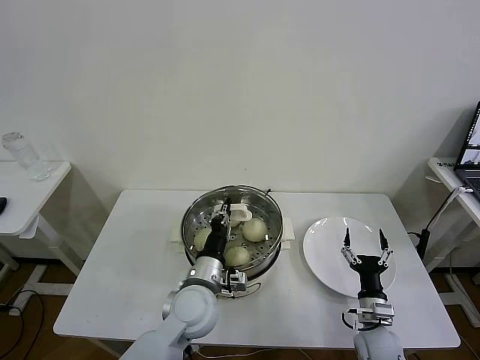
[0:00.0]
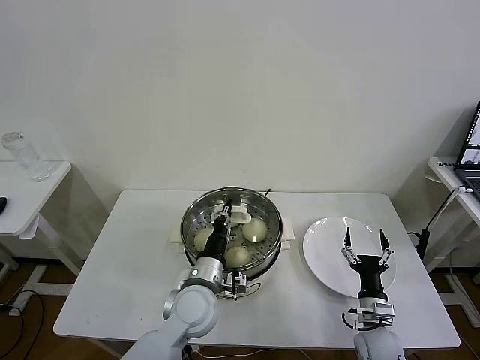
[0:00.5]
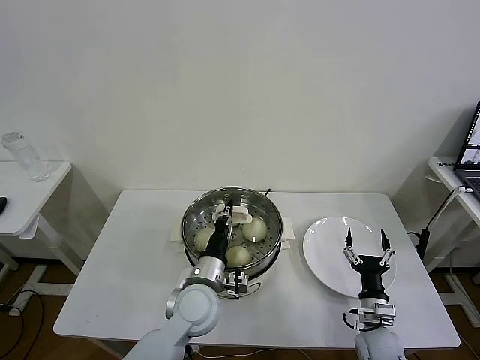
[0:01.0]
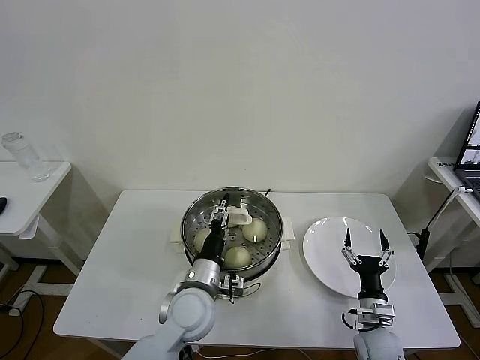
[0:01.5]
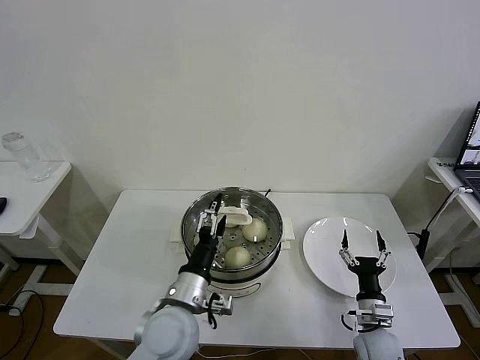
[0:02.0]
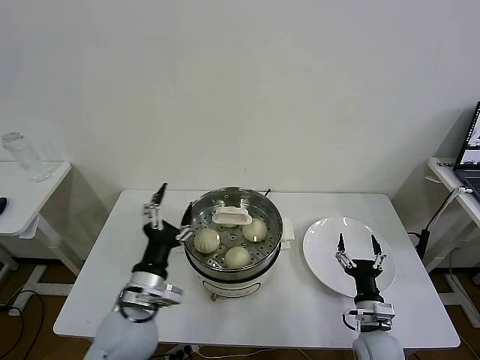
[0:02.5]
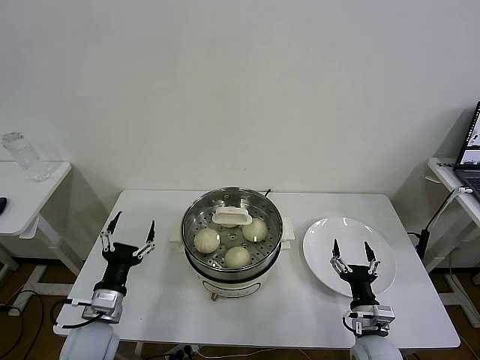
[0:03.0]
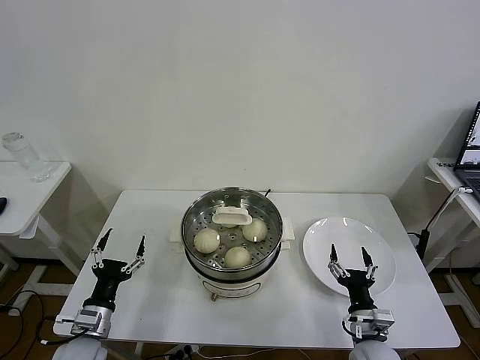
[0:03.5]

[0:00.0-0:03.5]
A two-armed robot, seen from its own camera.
Task of the whole recording: take steamed baozi put them in steamer then cover it.
0:00.0 to 0:02.0: The left gripper changes place by some 5 cm, and opens.
0:02.0 to 0:03.5: The right gripper ends up about 5 cm from where it was, while the left gripper heads to the left and downward, covering some 25 cm.

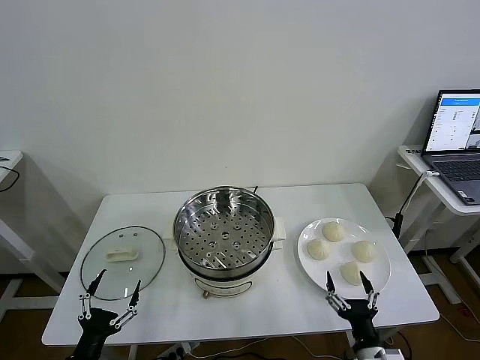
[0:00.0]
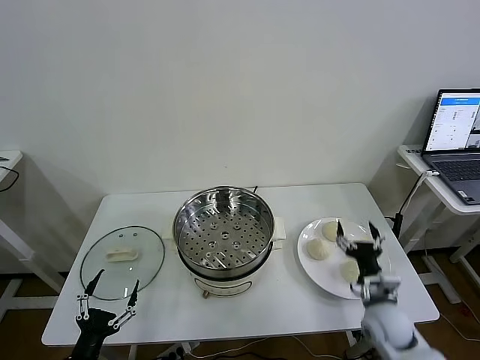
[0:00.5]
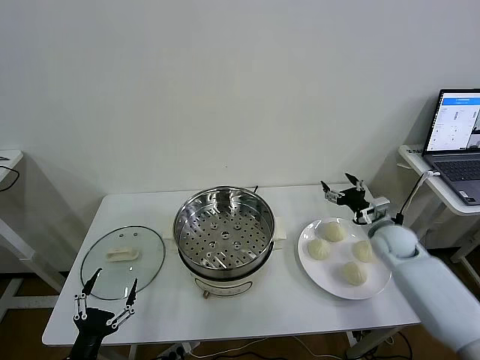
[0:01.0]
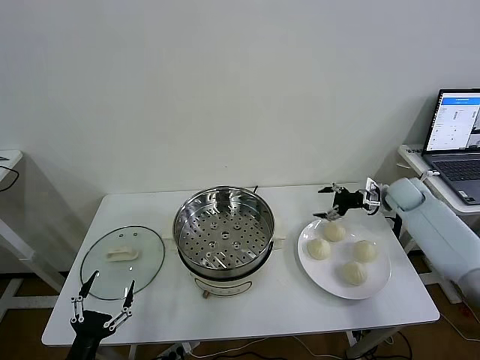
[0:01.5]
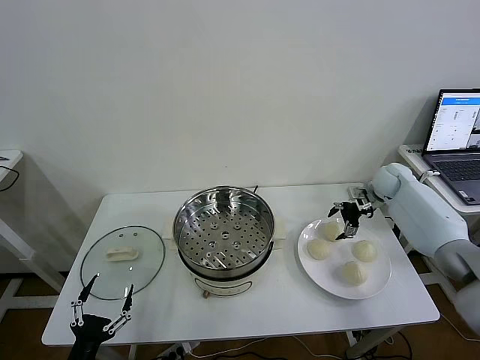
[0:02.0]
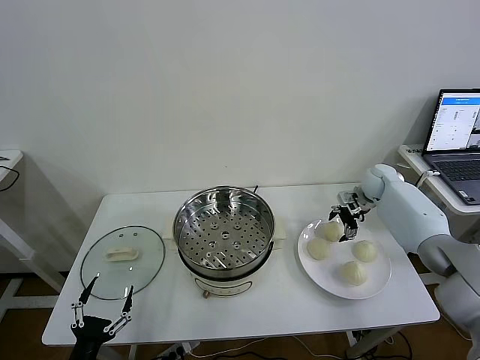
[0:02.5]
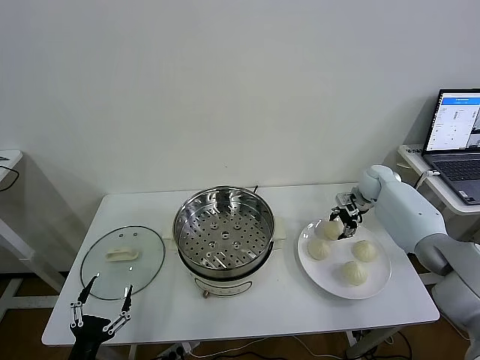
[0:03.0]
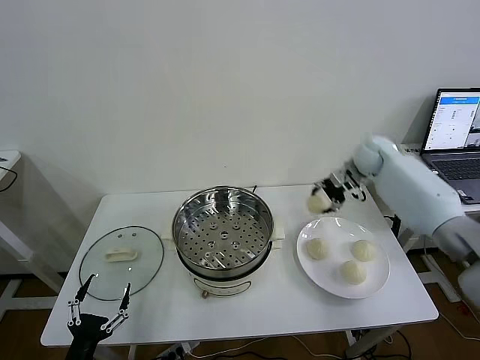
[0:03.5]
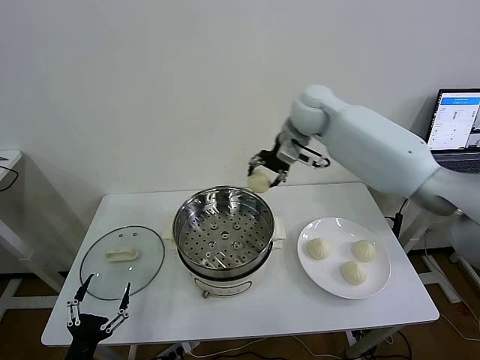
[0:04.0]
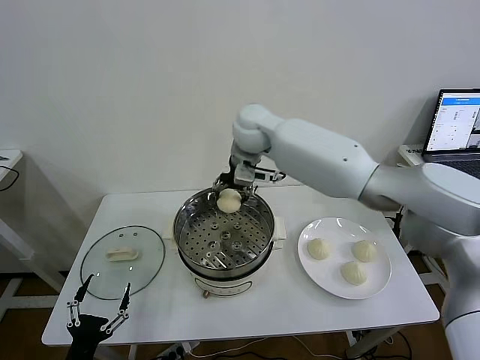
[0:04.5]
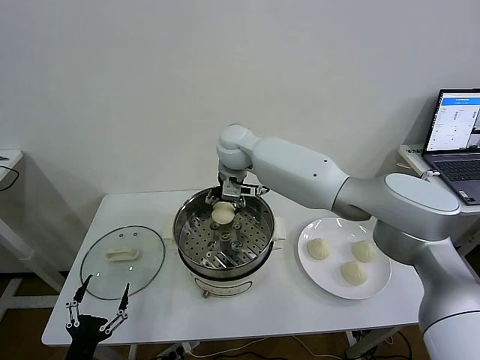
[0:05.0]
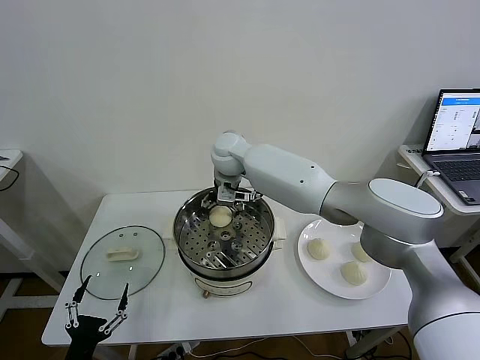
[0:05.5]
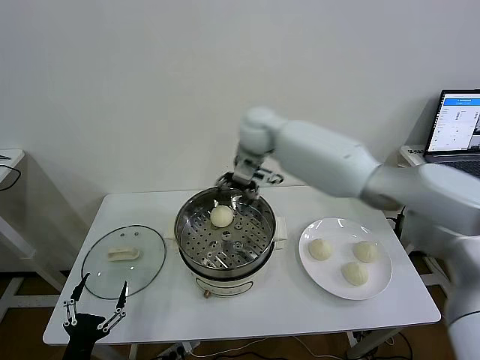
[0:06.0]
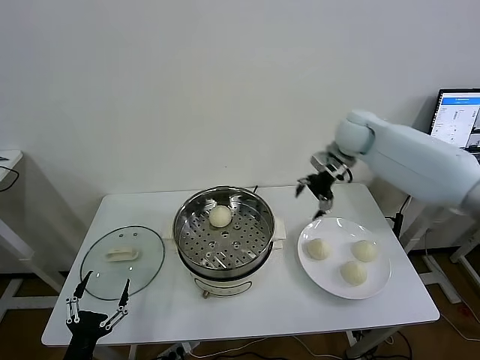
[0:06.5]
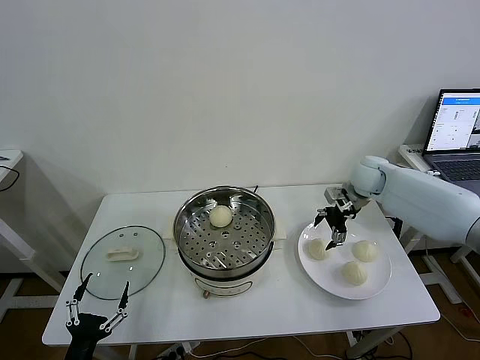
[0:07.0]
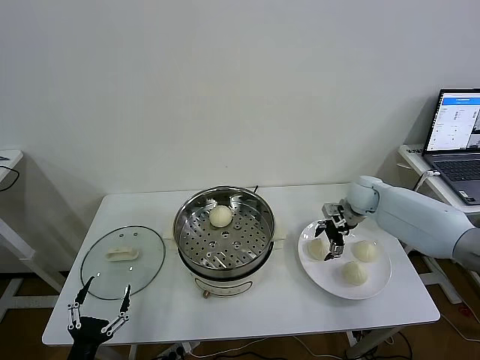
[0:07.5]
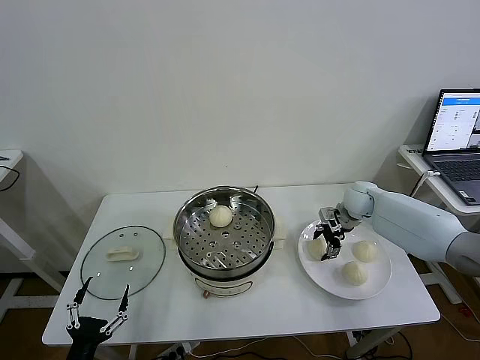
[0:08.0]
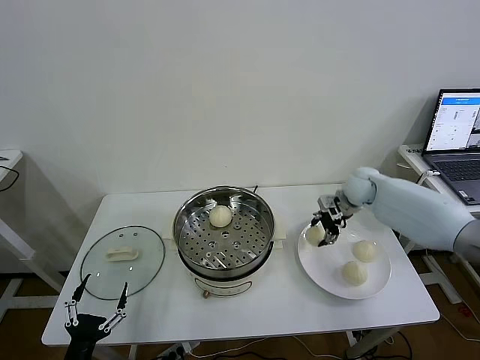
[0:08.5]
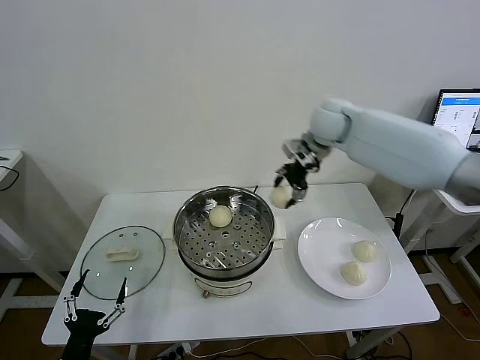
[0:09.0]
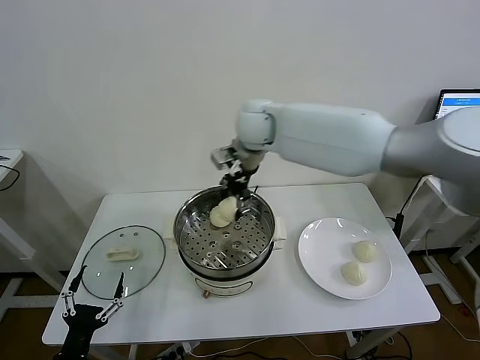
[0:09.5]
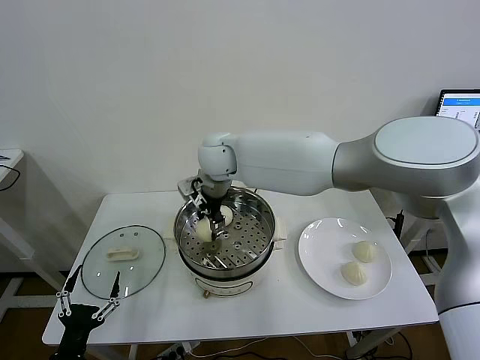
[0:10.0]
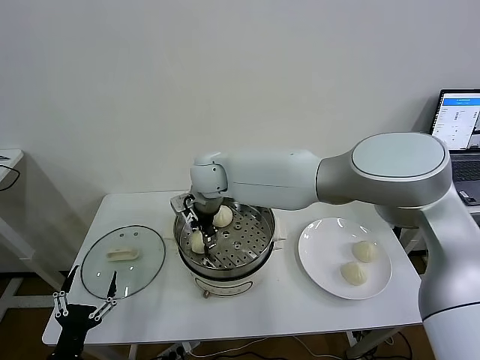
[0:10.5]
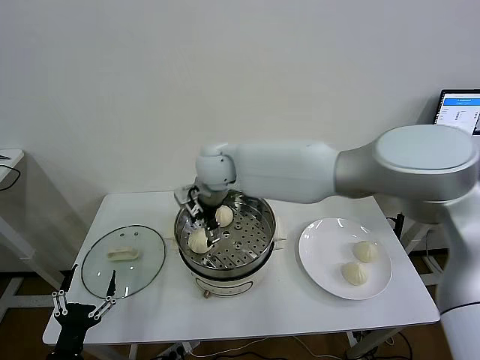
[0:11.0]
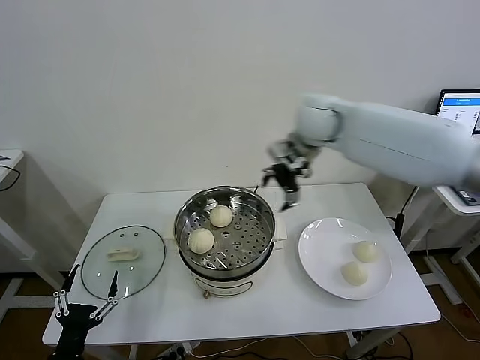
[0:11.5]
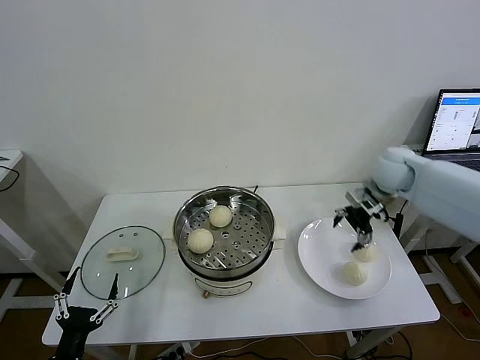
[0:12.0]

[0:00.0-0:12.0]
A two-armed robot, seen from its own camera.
Task of the whole recording: take steamed baozi put them in steamer then cover it.
Step, 0:00.0 to 0:02.5: Grasp the baozi in the plate with right gripper.
Step, 0:03.0 to 0:05.5: Place the baozi on the steamer with right gripper.
Step, 0:06.0 to 0:08.0: Grasp the baozi in the plate with right gripper.
Step, 0:08.5 to 0:10.5: Place the baozi on the steamer with right gripper.
0:02.0 to 0:04.0: The right gripper is displaced to the left and upward by approximately 35 cm, and closes.
0:04.0 to 0:06.0: The right gripper moves to the left, approximately 10 cm, and opens up.
0:06.0 to 0:08.0: The right gripper moves to the right and downward, roughly 35 cm, and closes up.
0:08.0 to 0:10.0: The right gripper heads to the left and upward, covering about 40 cm.
0:10.0 to 0:12.0: The right gripper travels to the right by some 40 cm, and opens its fingers.

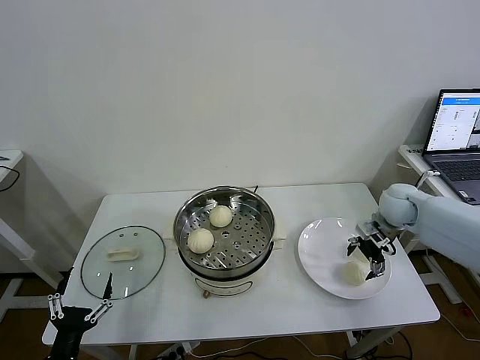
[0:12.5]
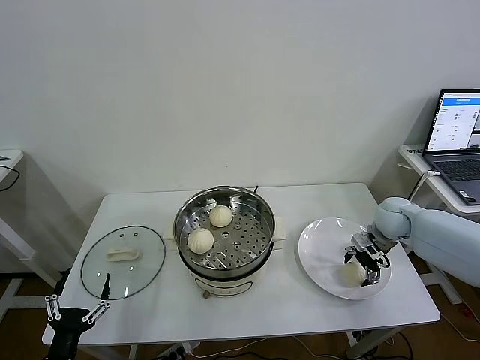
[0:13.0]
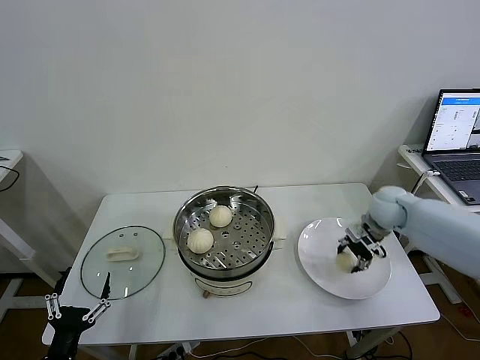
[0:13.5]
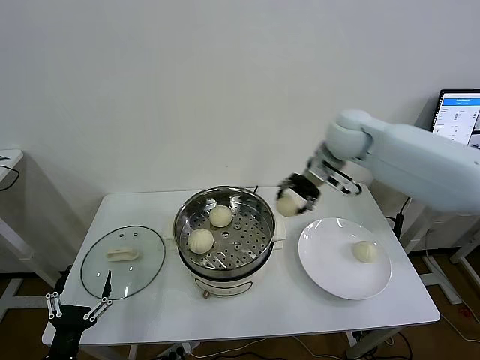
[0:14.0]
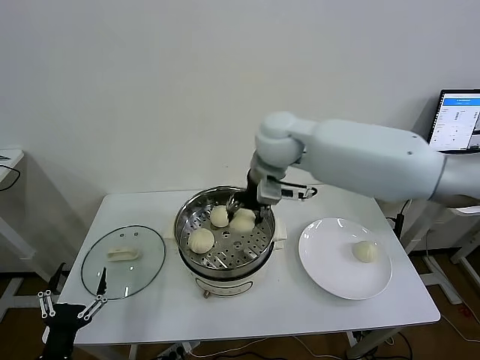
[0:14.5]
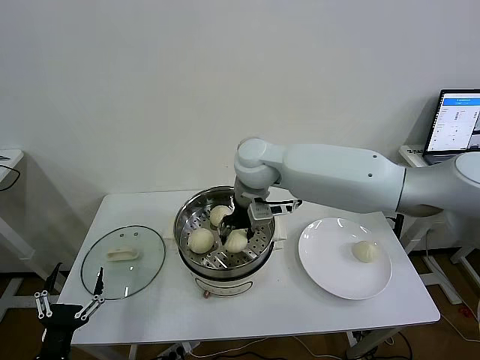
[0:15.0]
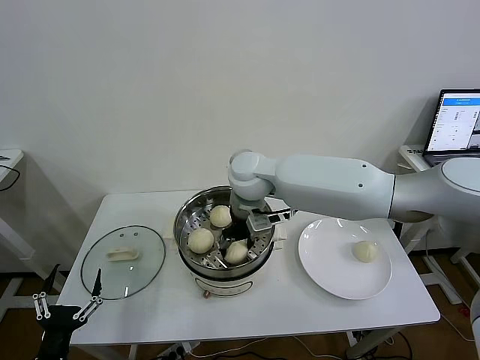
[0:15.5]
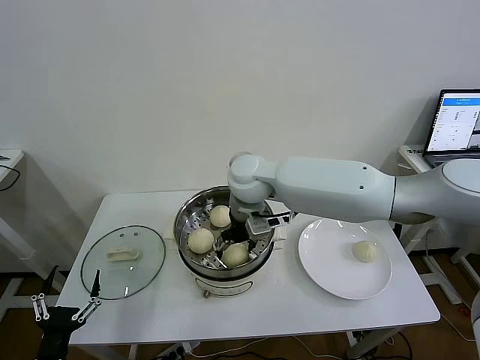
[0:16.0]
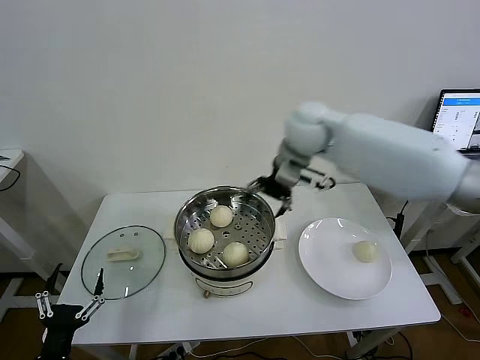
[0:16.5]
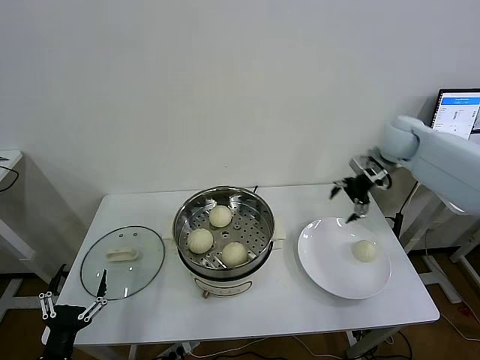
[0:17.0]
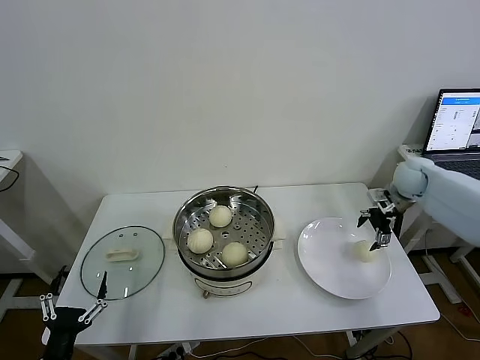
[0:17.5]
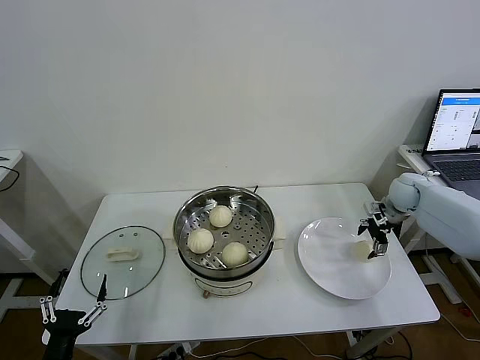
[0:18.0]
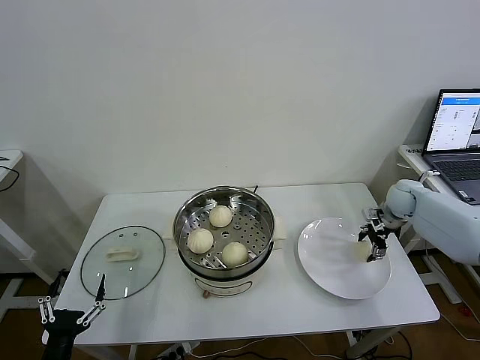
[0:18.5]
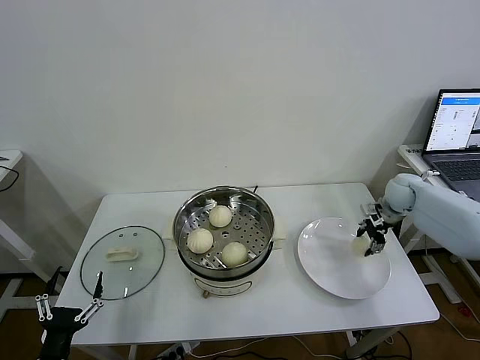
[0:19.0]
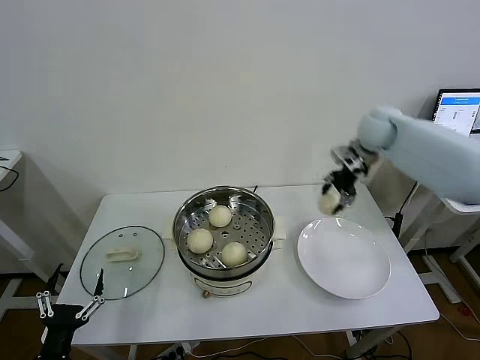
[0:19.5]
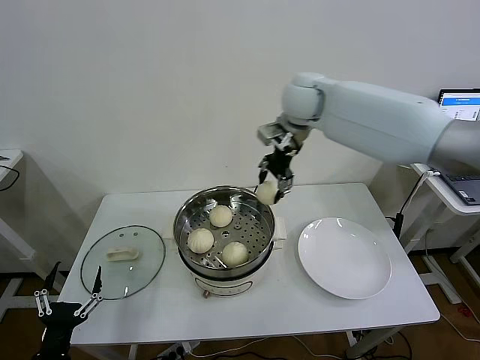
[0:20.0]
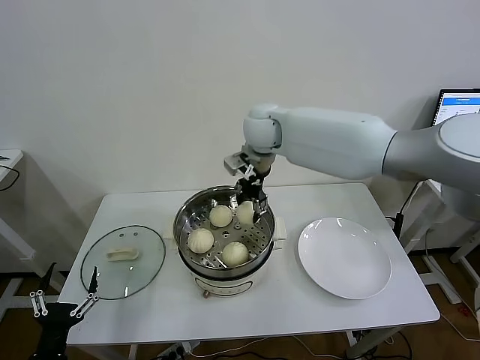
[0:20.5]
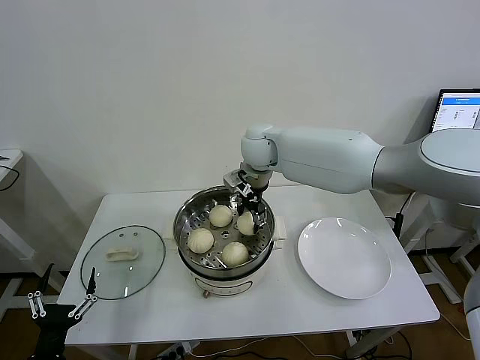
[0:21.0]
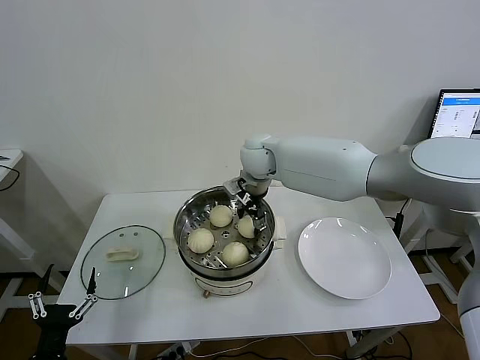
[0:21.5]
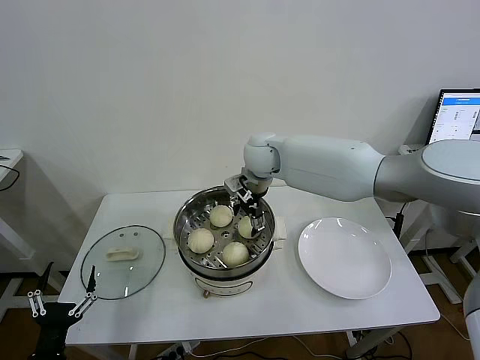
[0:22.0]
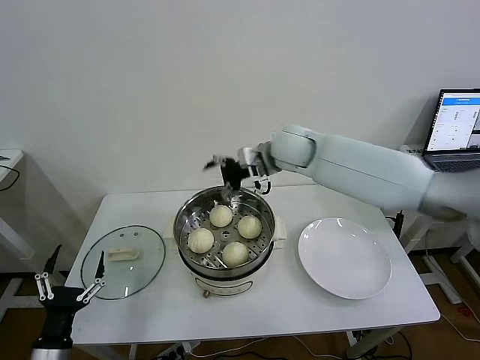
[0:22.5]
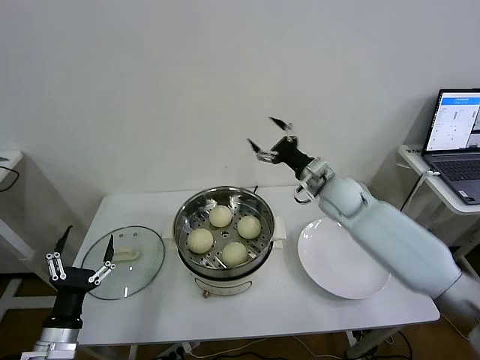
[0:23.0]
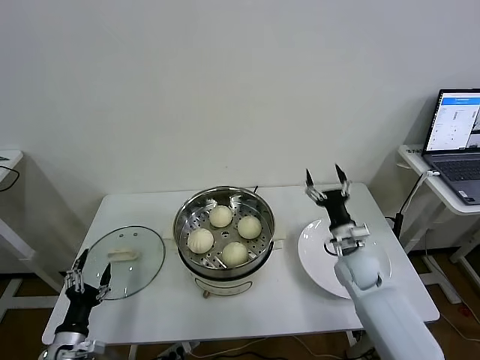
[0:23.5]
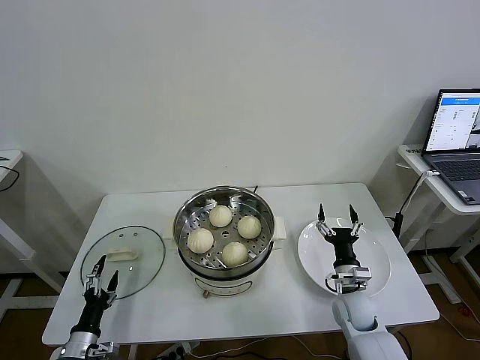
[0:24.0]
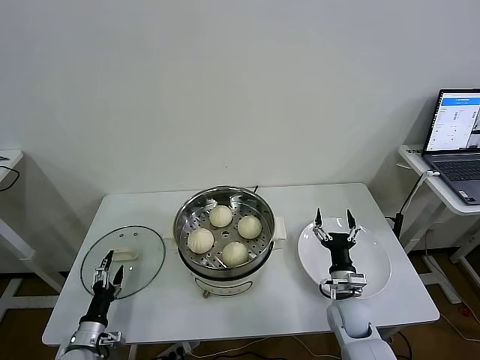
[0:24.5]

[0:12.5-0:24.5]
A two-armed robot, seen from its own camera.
Task of the whole recording: take steamed baozi put them in steamer then cover it.
Step, 0:13.5 to 0:15.5: Place the baozi on the steamer with right gripper.
Step, 0:16.0 to 0:18.5: Grasp the baozi in the plate with right gripper.
Step, 0:19.0 to 0:22.0: Place the baozi on the steamer with right gripper.
0:12.5 to 0:14.5: The right gripper shifts roughly 35 cm to the left and upward, and closes its fingers.
0:14.5 to 0:16.5: The right gripper shifts some 5 cm to the right, and opens up.
0:16.5 to 0:18.5: The right gripper shifts roughly 40 cm to the right and downward, and closes up.
0:18.5 to 0:20.5: The right gripper travels to the left and upward by roughly 40 cm, and closes.
0:20.5 to 0:22.5: The right gripper moves to the right, about 5 cm, and opens up.
0:22.5 to 0:24.5: The right gripper heads downward, backward and to the right, covering approximately 40 cm, while the left gripper heads downward and forward, covering some 15 cm.
